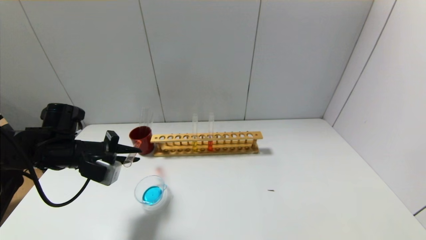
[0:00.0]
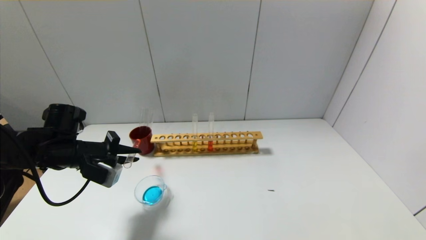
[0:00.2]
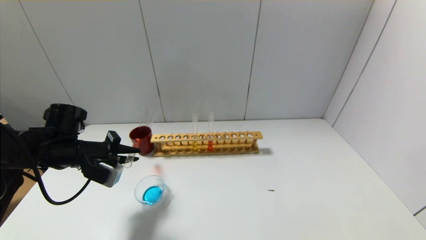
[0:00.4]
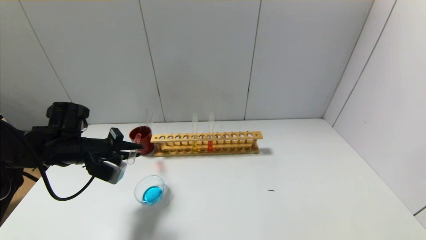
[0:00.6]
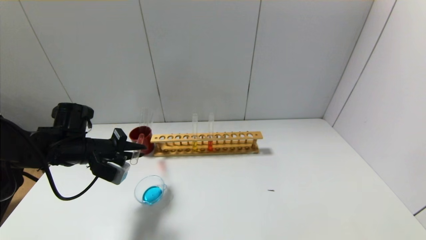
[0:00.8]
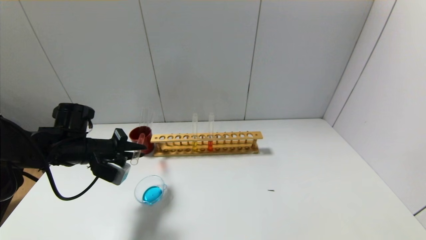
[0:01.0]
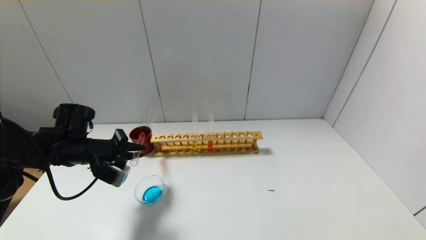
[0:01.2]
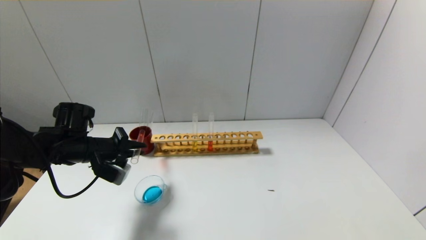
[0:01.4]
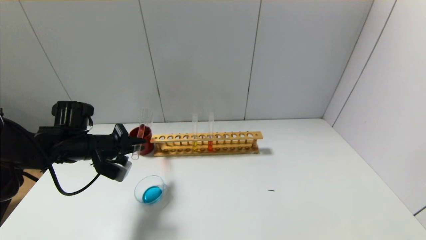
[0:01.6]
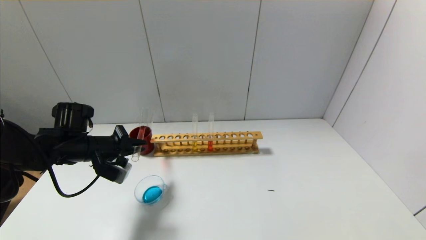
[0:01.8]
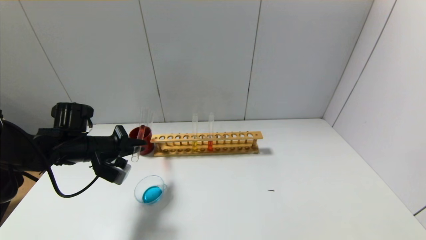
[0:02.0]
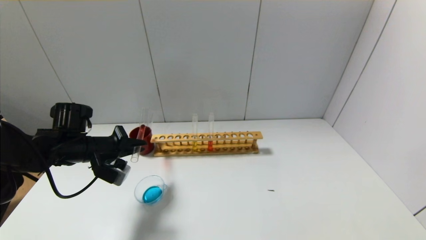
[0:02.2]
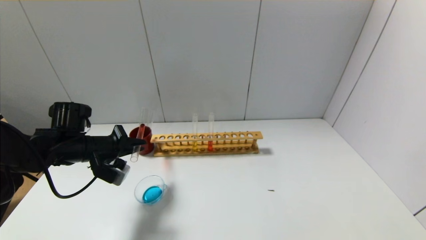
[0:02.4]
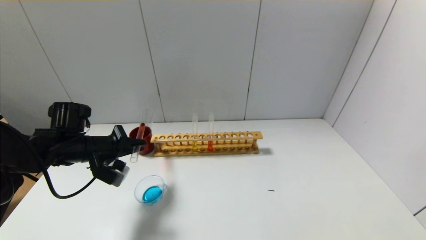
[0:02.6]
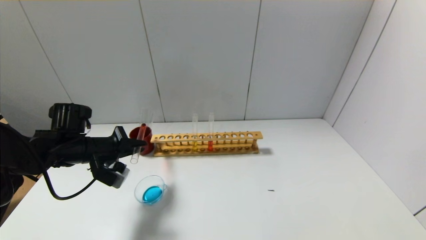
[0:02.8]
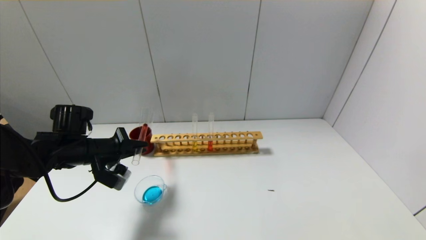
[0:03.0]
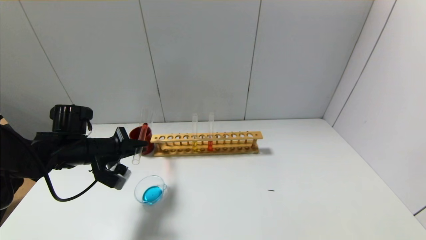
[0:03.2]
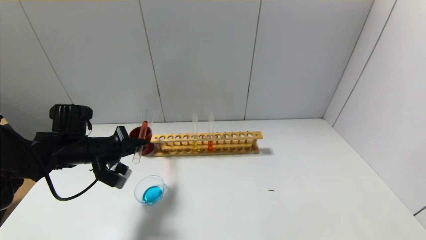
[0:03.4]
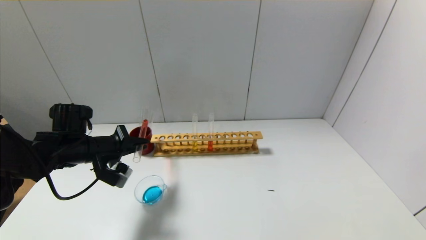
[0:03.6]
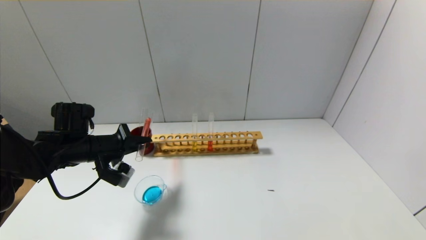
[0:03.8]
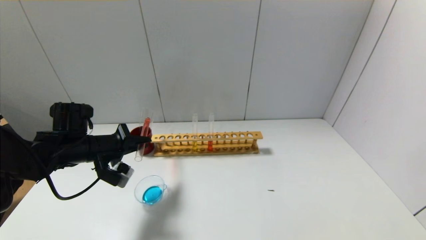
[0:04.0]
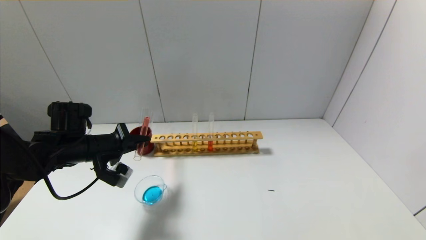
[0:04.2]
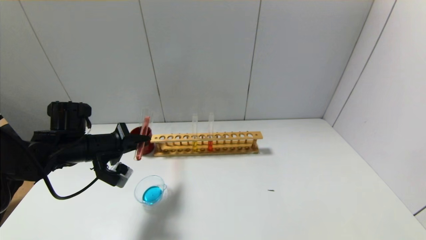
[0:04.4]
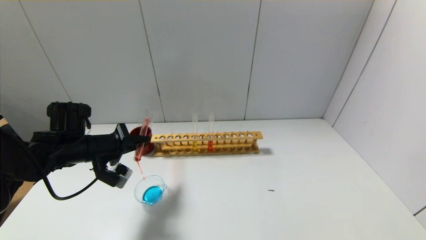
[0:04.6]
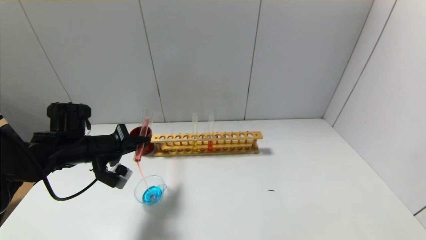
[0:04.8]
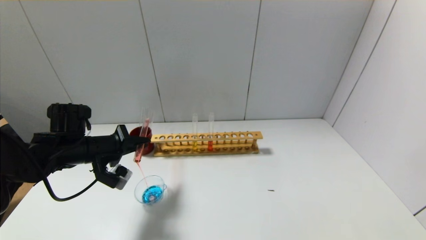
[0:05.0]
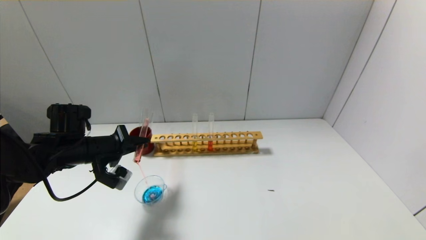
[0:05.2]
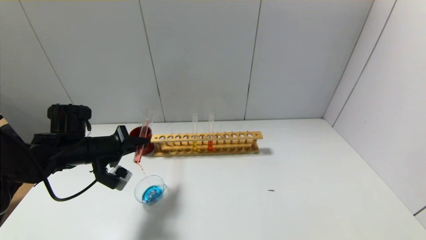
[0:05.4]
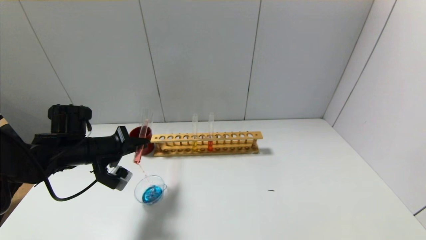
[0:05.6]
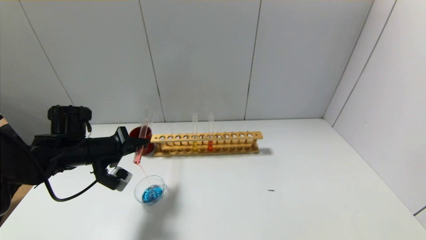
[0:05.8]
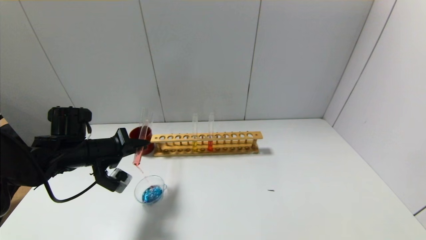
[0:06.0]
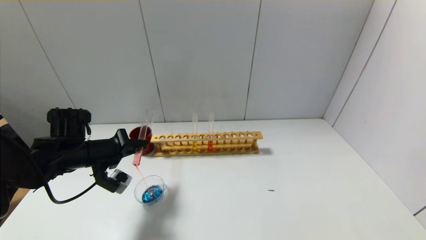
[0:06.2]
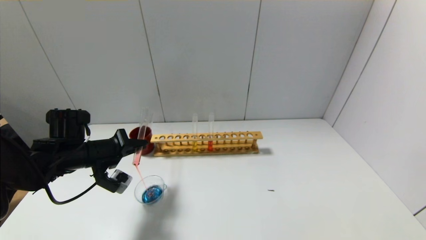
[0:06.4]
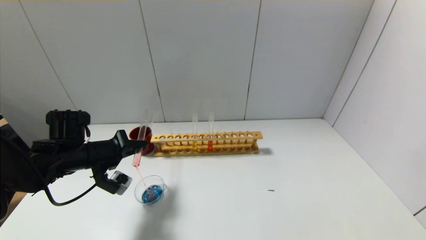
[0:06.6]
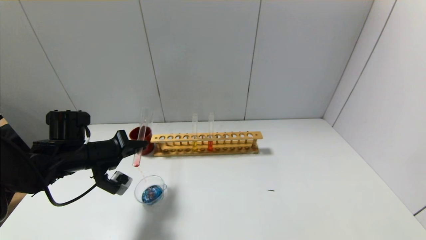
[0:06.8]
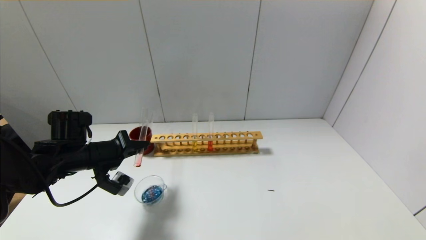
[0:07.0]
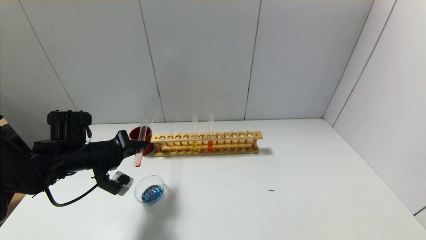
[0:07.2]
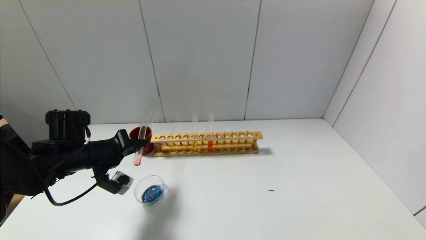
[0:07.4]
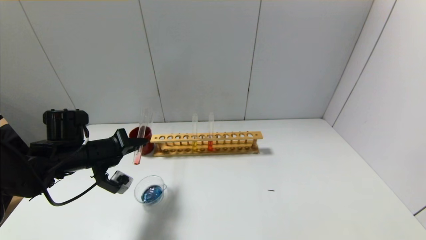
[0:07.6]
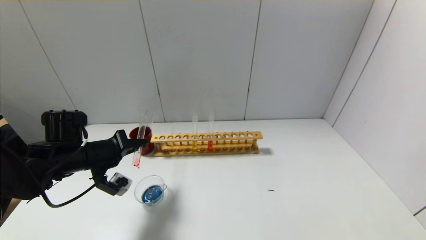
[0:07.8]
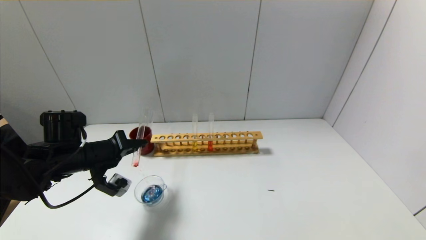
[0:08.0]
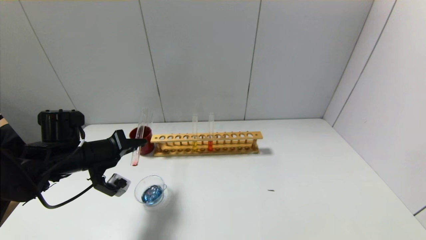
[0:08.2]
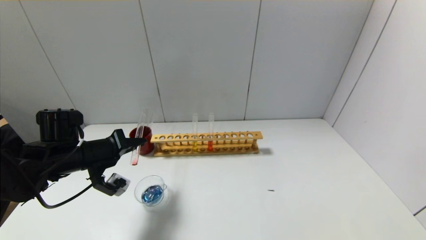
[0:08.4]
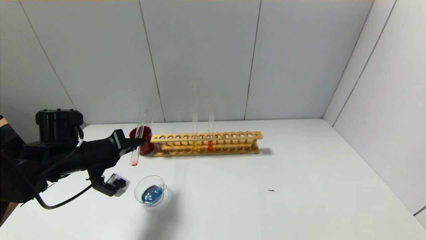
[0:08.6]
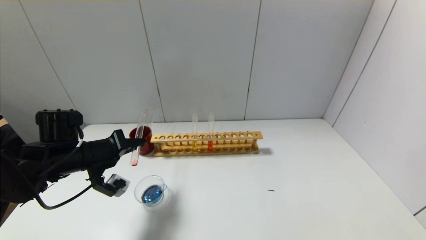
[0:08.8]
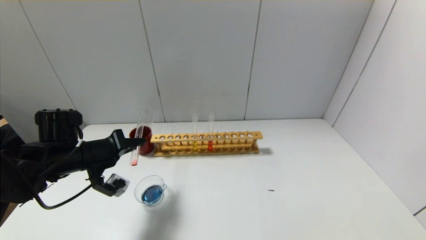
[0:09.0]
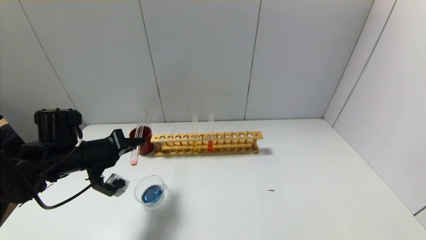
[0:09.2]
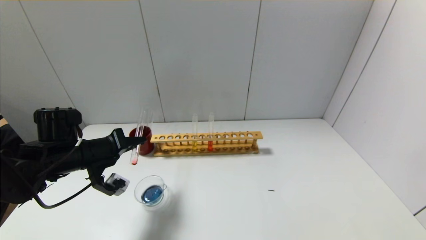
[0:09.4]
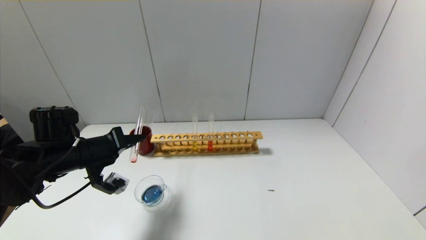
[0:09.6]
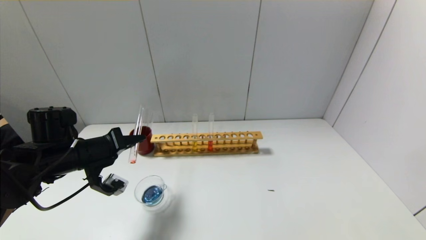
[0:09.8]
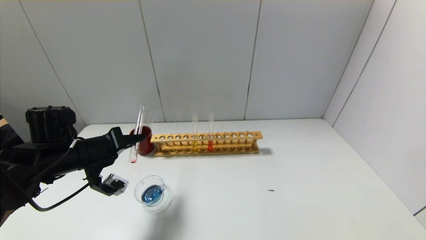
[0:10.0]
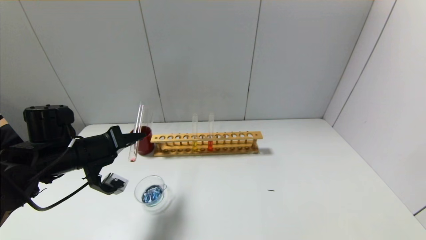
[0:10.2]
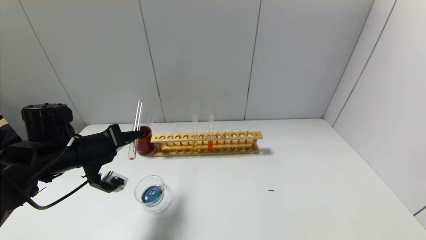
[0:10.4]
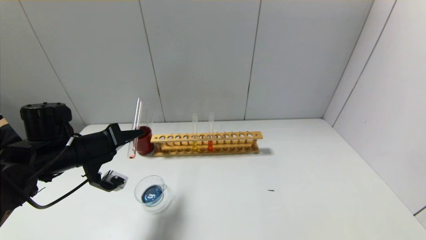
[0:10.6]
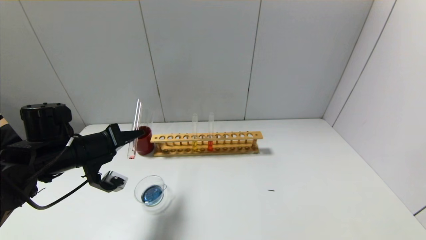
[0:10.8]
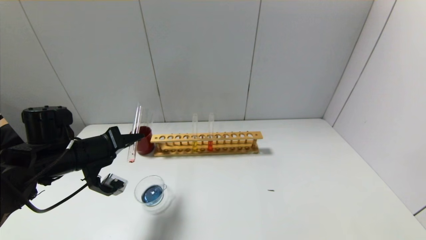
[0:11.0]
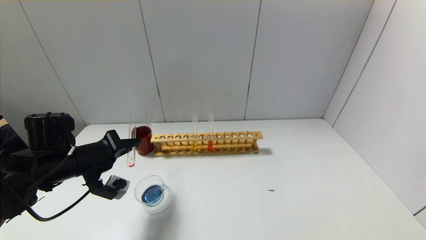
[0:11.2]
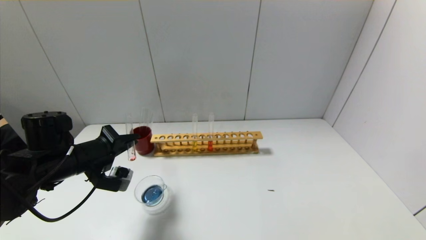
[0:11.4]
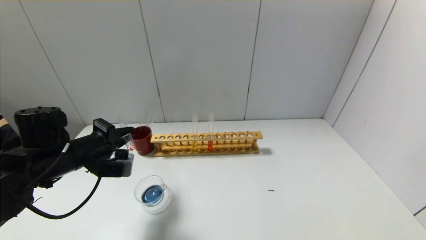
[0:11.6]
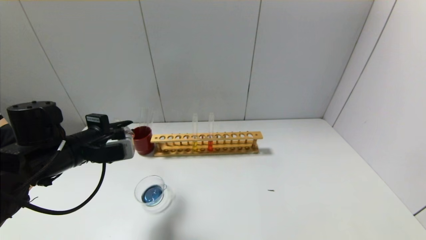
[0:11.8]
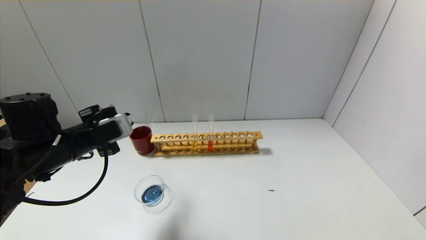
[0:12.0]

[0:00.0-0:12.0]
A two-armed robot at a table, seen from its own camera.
Step, 0:00.0 to 0:11.2: Pour the red reagent into the graduated cylinder with the left gripper.
0:00.0 to 0:01.6: The grippers move only a little.
0:01.6 to 0:04.4: The grippers move only a little.
0:04.4 to 0:06.0: Both grippers stay about where they are.
0:06.0 to 0:07.6: There are only small adjustments of the grippers.
0:07.6 to 0:09.0: Both grippers stay put.
0:09.0 to 0:10.4: The grippers move only a little.

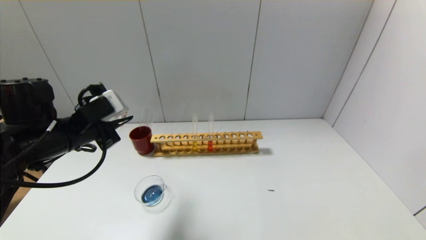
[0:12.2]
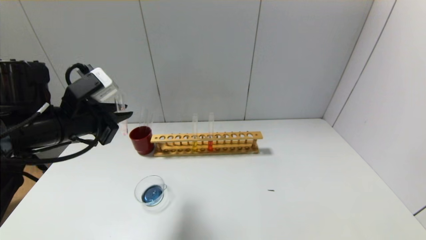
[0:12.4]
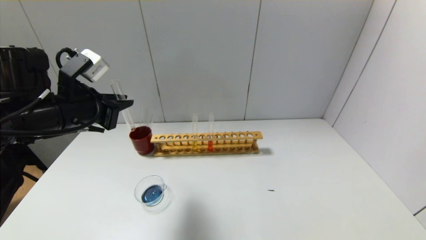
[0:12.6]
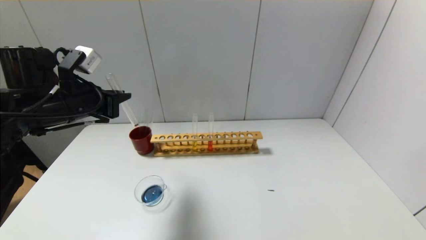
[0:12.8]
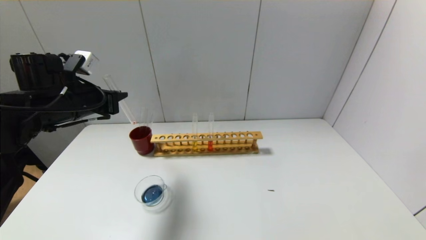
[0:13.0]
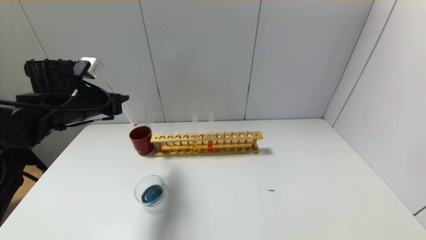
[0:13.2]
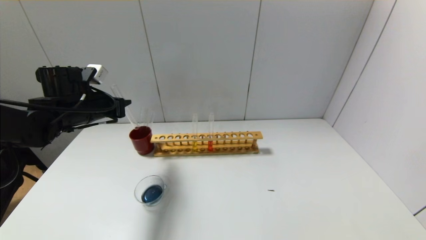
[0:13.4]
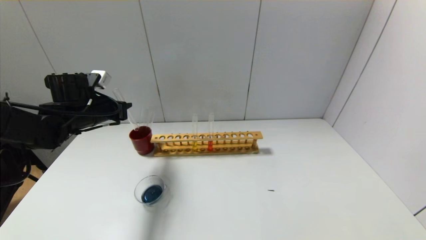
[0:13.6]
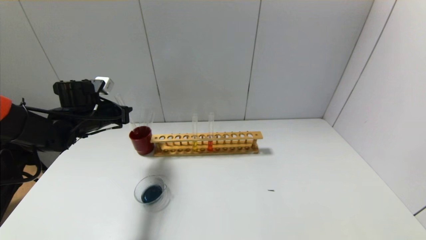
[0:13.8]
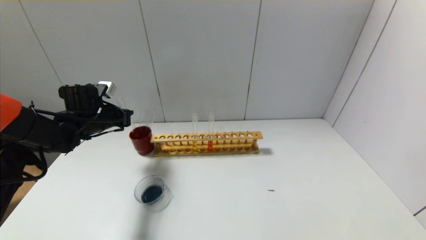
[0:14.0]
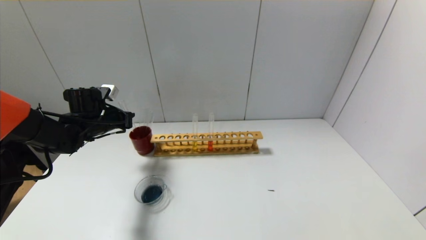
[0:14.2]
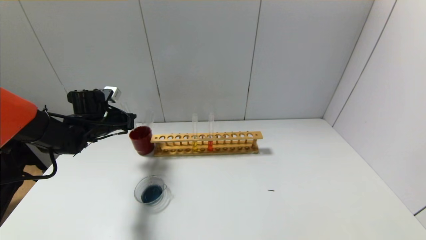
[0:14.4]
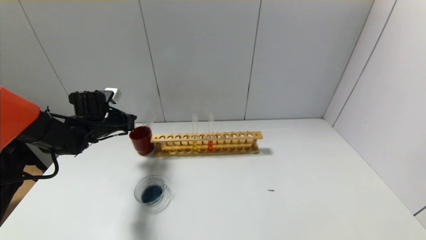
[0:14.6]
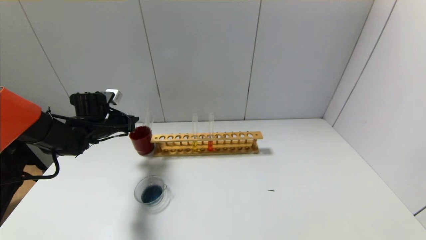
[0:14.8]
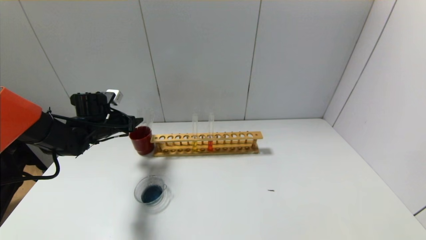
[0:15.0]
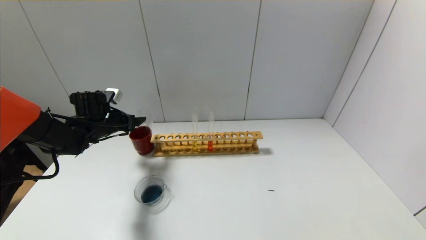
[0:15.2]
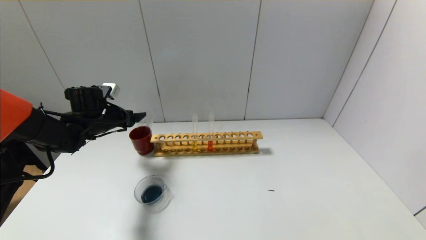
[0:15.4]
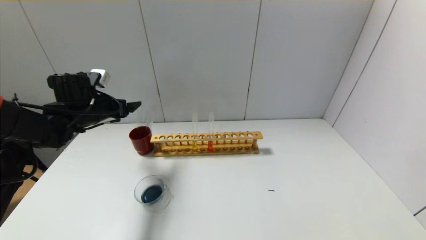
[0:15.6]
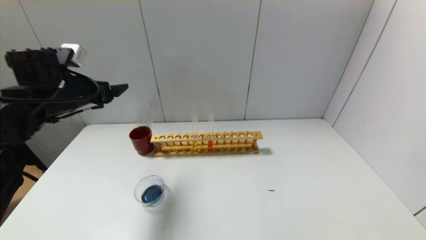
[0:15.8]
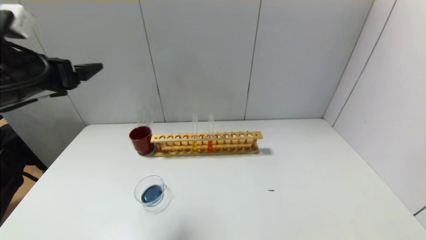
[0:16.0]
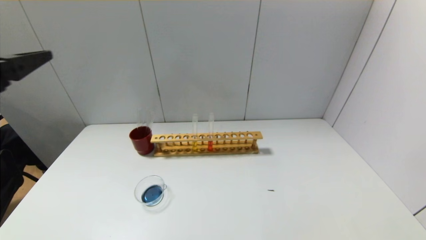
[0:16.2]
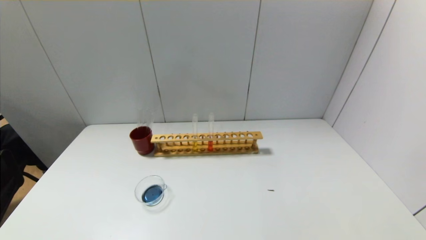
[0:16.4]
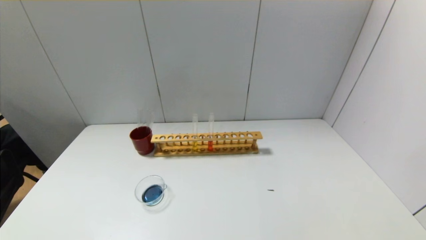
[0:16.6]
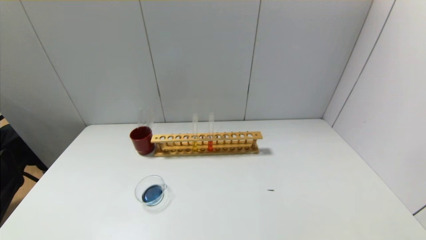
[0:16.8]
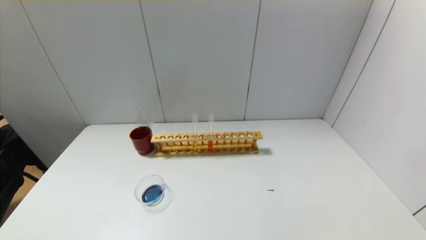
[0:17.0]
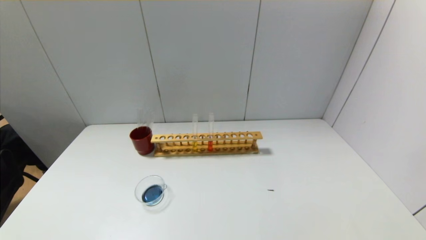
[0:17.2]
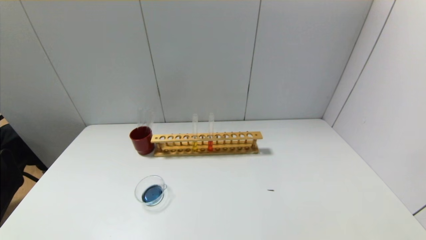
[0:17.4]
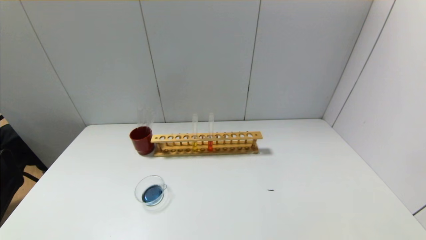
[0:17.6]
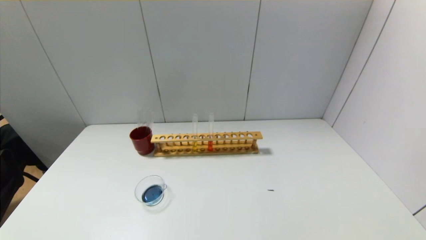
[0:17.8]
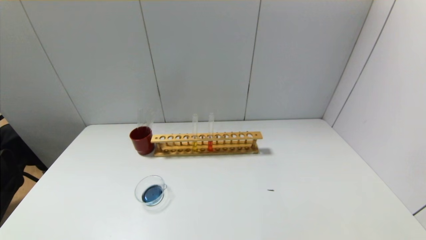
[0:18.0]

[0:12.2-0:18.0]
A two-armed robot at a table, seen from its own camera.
Step, 0:12.2 to 0:14.8: Place the test tube into the brown cup with the left gripper.
0:12.2 to 0:13.6: The left gripper is displaced forward by about 10 cm.
0:13.6 to 0:15.0: The left gripper travels downward by roughly 5 cm, and opens up.
0:15.0 to 0:16.6: The left gripper goes about 50 cm backward, and opens its fingers.
